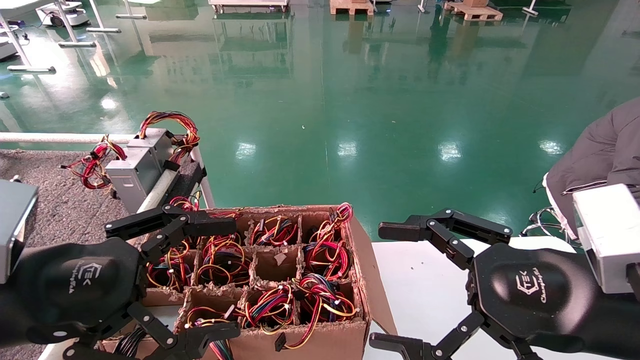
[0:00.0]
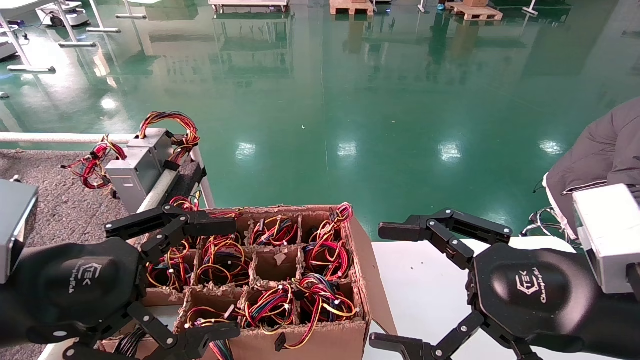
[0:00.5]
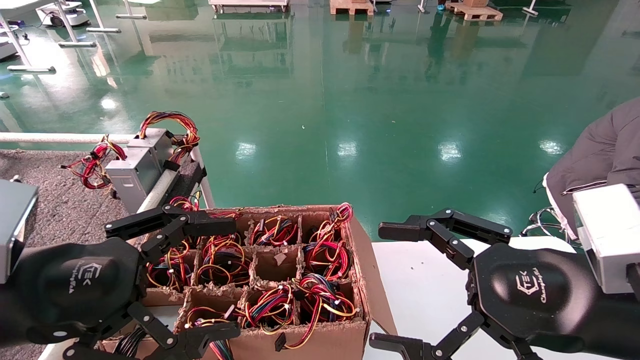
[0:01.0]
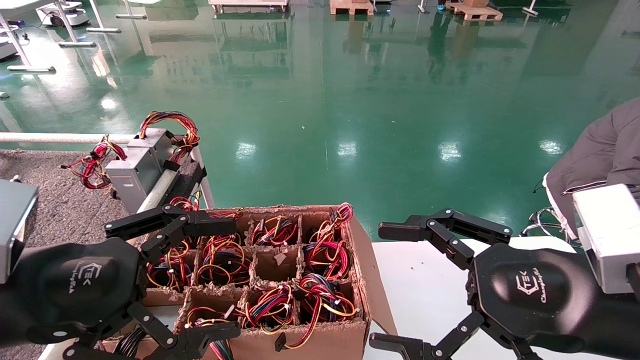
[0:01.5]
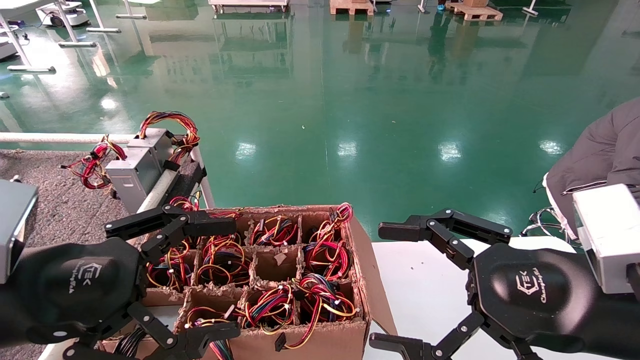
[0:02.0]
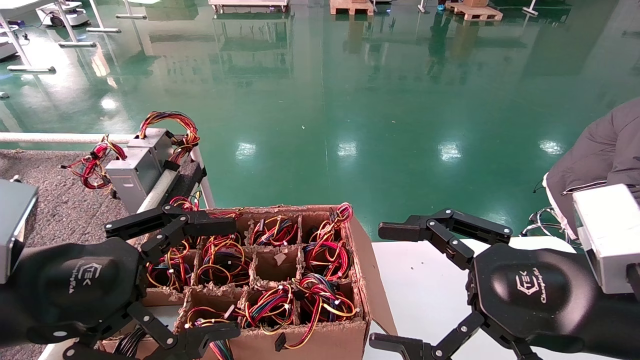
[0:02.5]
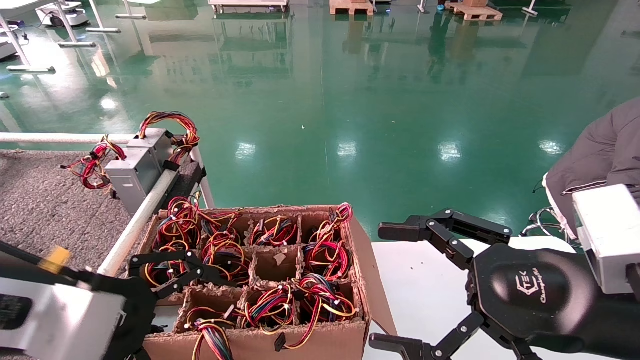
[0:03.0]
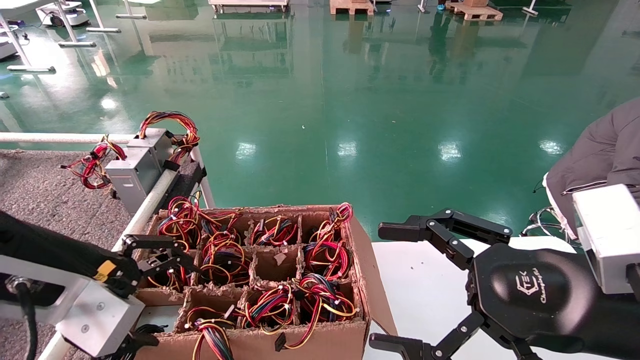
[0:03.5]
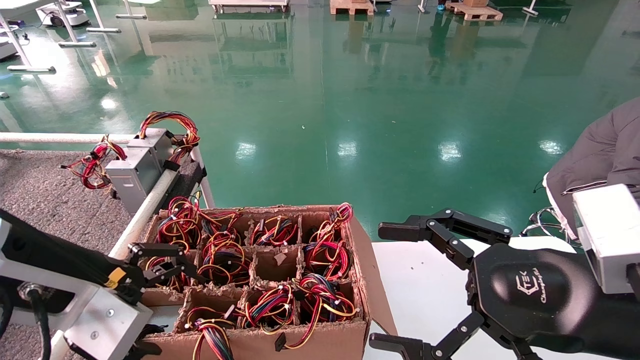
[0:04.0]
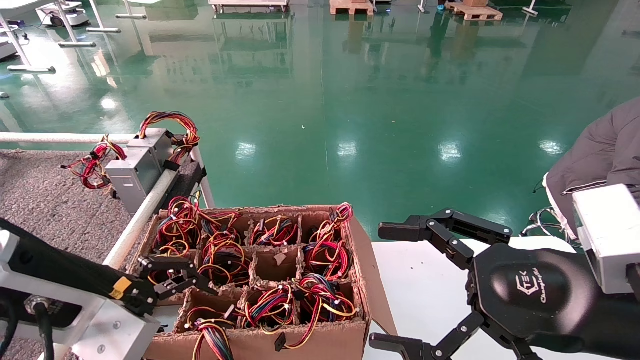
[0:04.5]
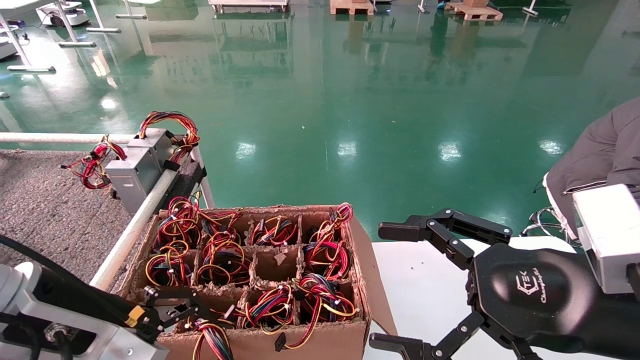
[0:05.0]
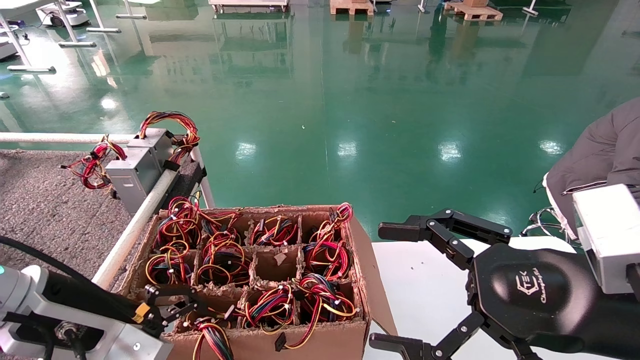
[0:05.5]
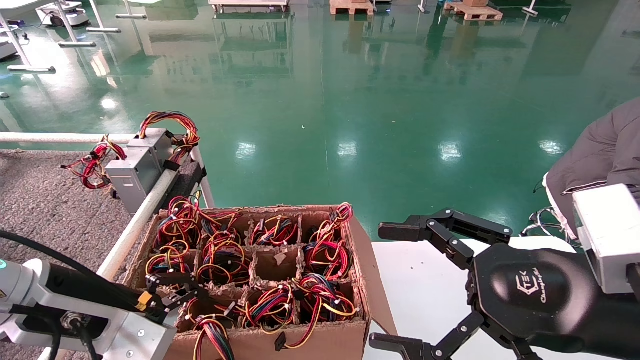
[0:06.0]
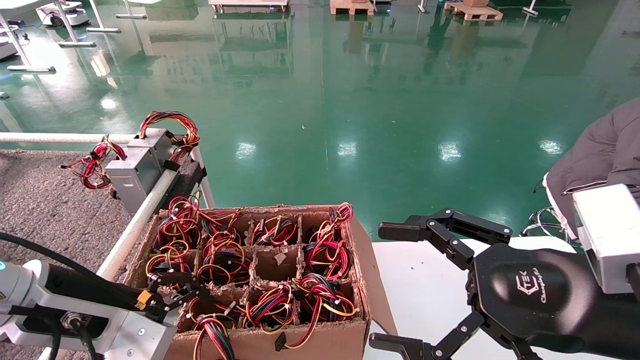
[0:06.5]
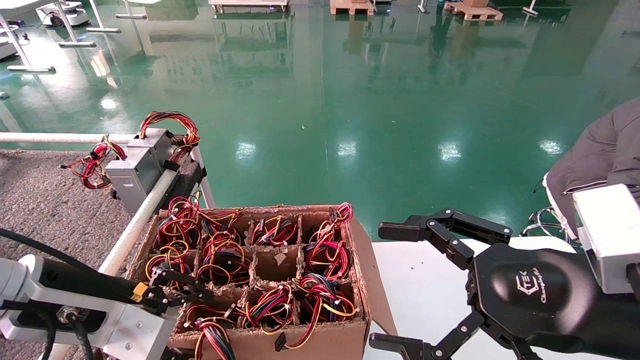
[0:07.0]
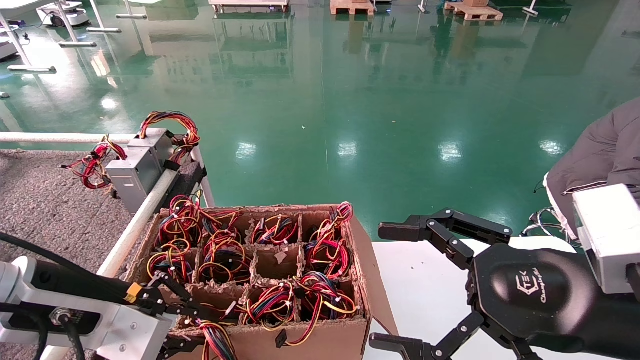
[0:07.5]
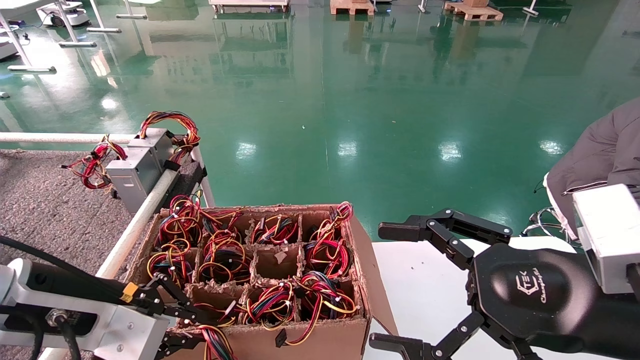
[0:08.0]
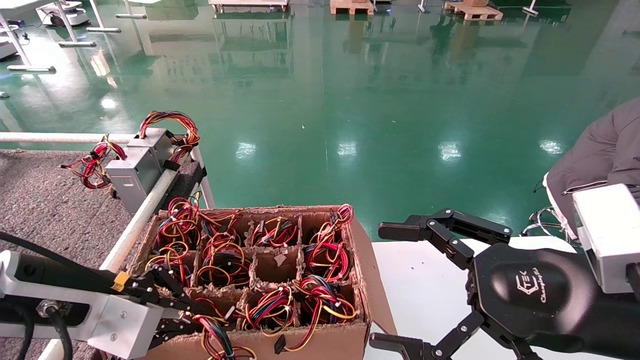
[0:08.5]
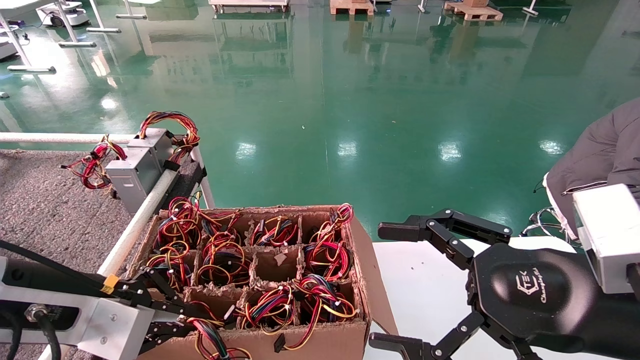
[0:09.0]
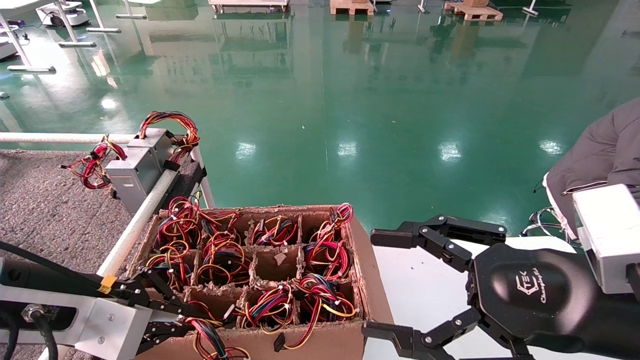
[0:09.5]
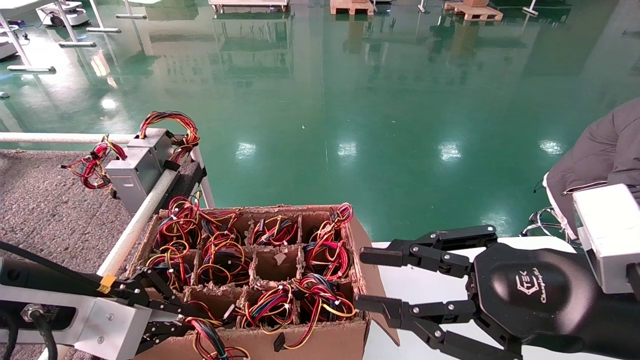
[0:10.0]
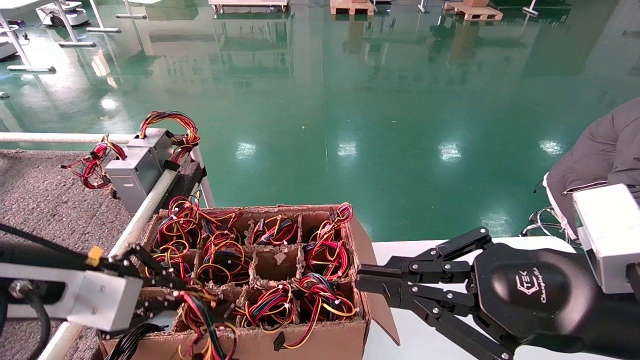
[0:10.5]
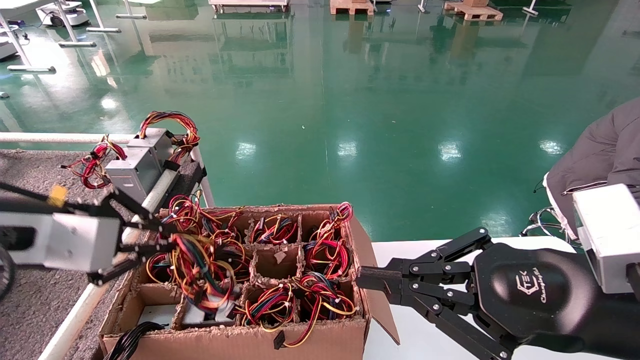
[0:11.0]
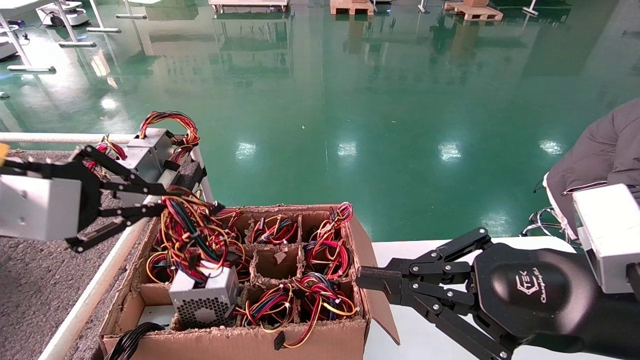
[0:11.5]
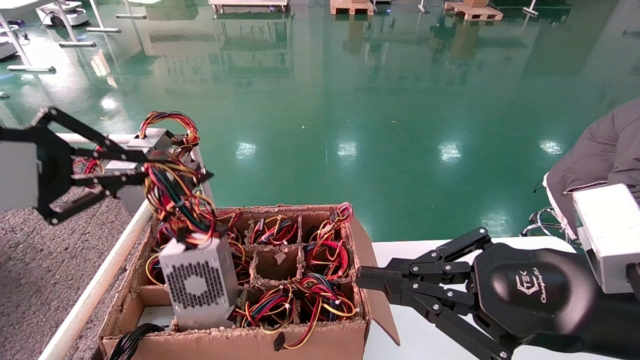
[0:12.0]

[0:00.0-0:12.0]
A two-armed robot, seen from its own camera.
Step, 0:02.5 to 0:07.5: Grab and lift the power supply from the large box.
0:00.0 to 0:02.0: Both grippers stay about where they are.
0:04.0 to 0:06.0: The left gripper travels downward by about 5 cm.
0:06.0 to 0:08.0: The left gripper closes its fingers.
0:08.0 to 0:10.0: The right gripper closes its fingers.
0:10.0 to 0:12.0: The right gripper closes. Meanwhile the left gripper heads upward, covering approximately 15 cm.

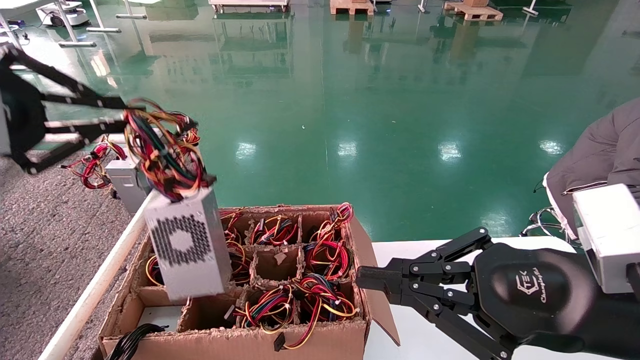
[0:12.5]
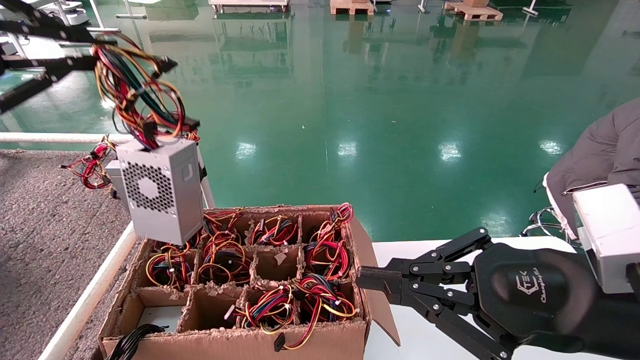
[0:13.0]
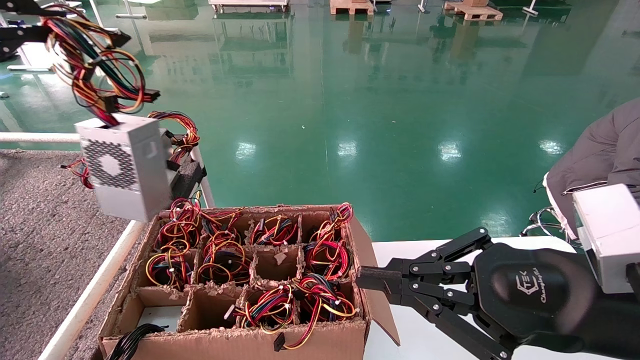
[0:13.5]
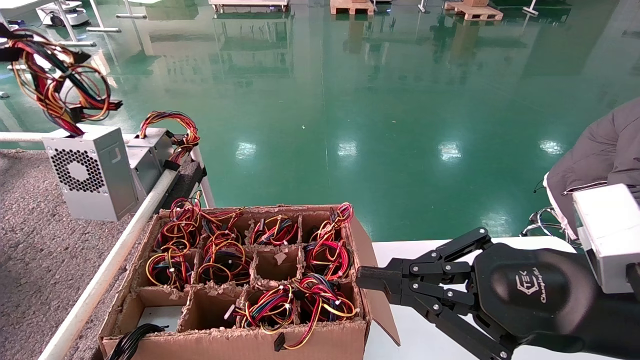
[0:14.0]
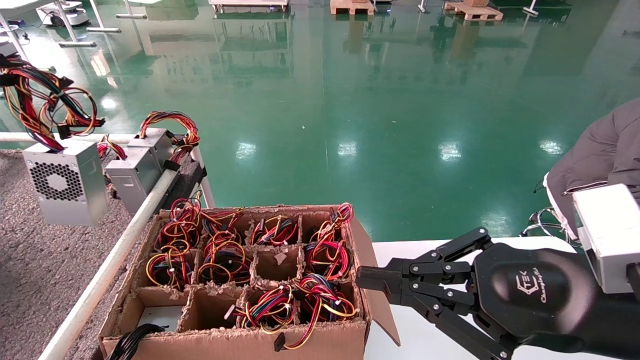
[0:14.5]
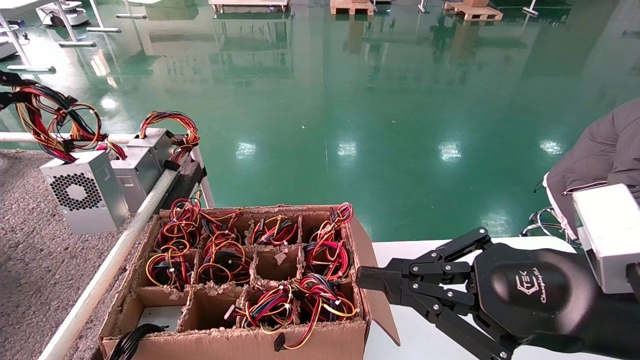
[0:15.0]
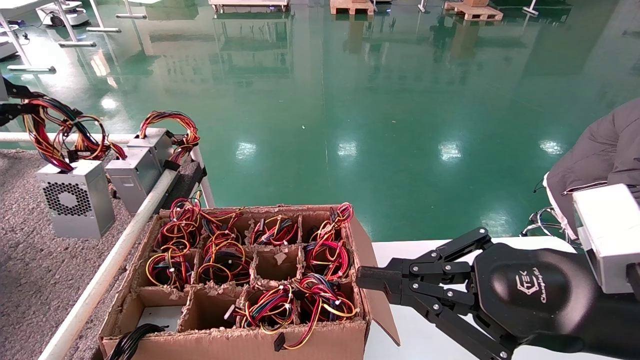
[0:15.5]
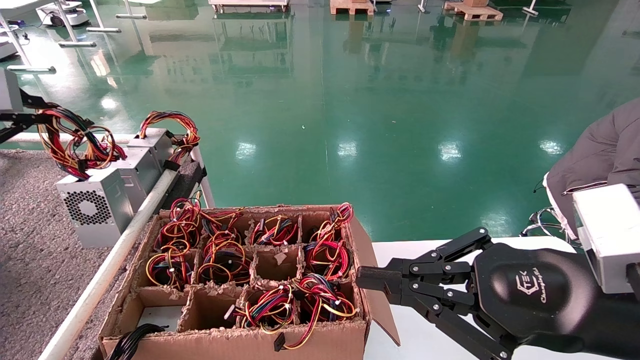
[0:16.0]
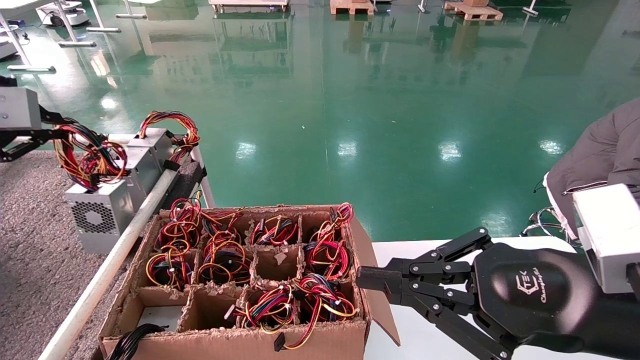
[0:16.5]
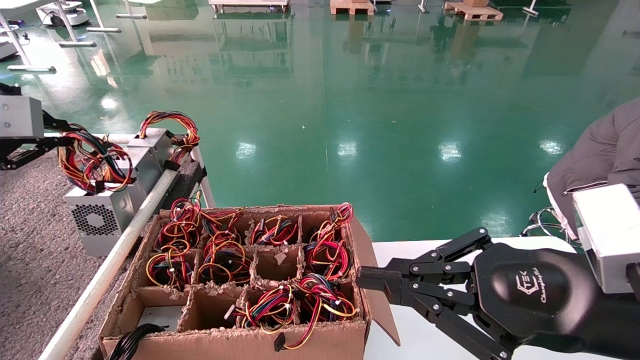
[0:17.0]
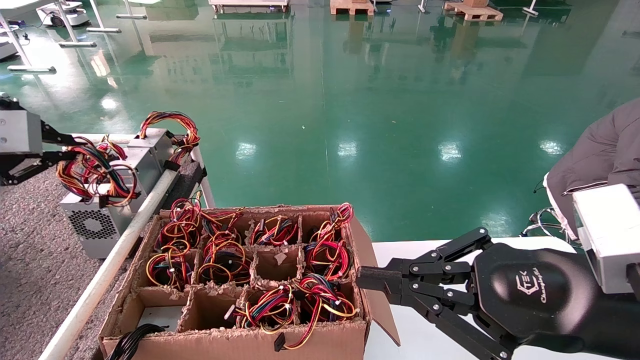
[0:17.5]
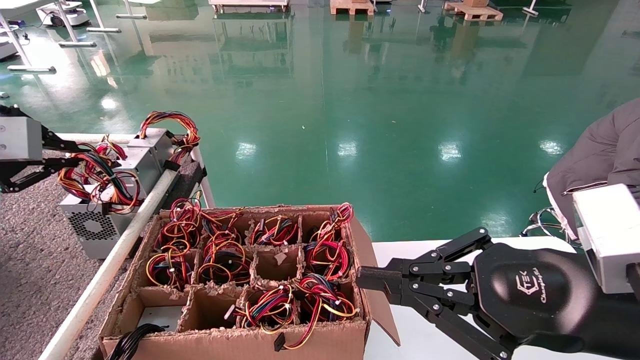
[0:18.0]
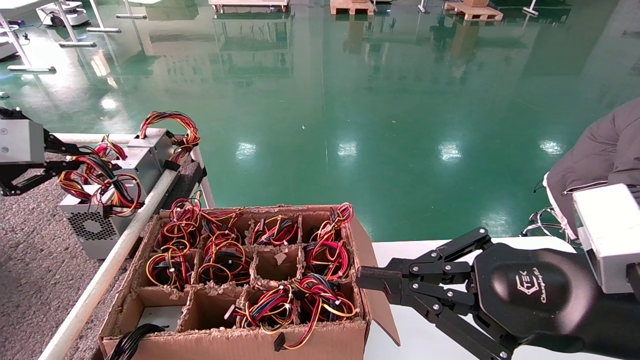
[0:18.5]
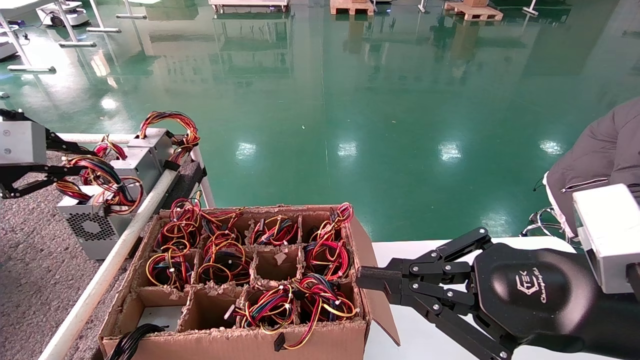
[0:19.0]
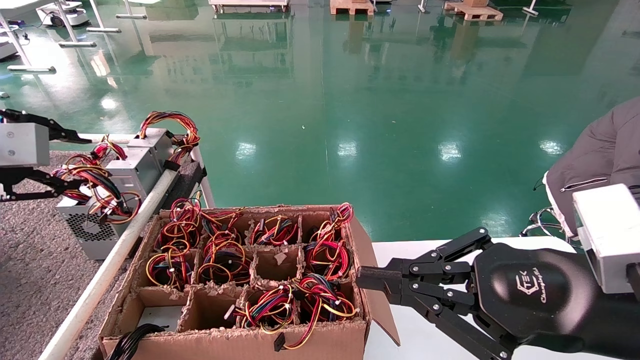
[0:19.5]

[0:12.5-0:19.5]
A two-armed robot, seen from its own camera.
Step, 0:12.5 to 0:19.5: Place the power supply on the operating table.
0:12.5 to 0:14.5: The left gripper is displaced to the left and forward by about 15 cm.
0:14.5 to 0:16.0: The left gripper shifts by approximately 5 cm.
0:16.0 to 0:19.5: The grippers move only a little.
